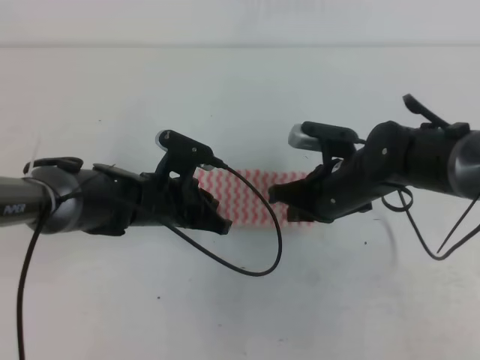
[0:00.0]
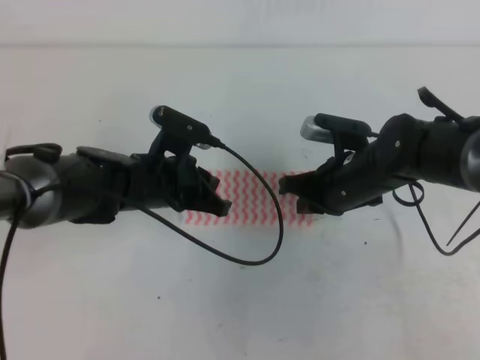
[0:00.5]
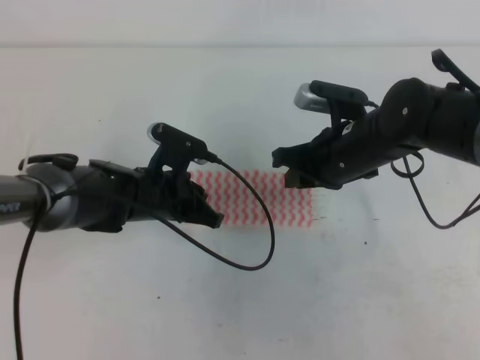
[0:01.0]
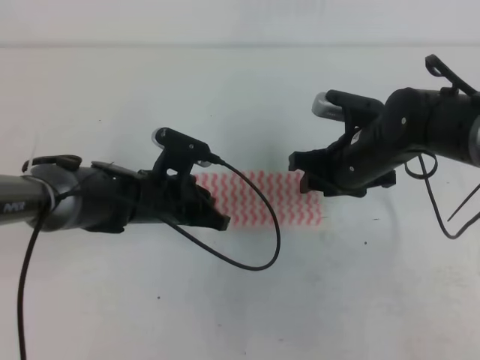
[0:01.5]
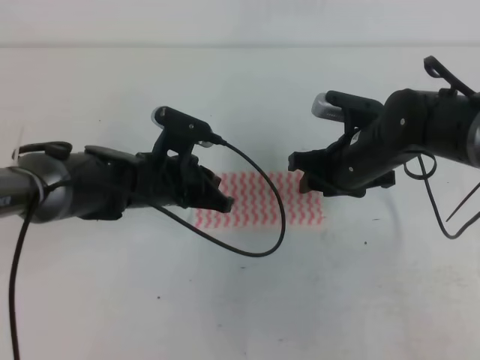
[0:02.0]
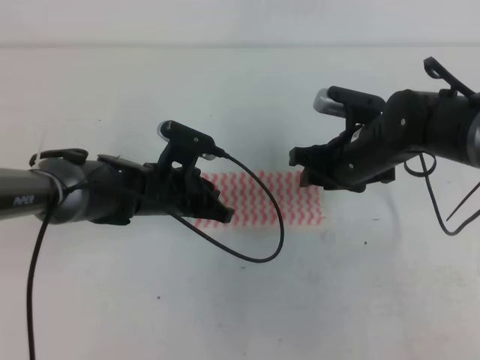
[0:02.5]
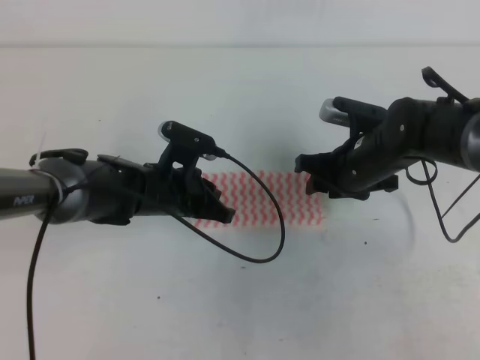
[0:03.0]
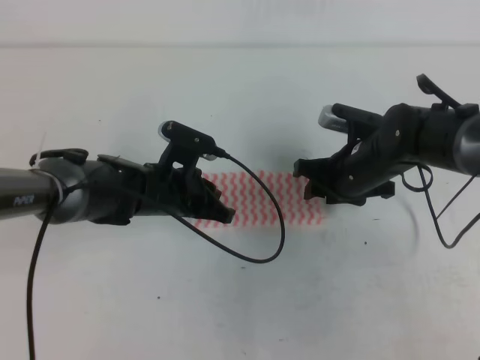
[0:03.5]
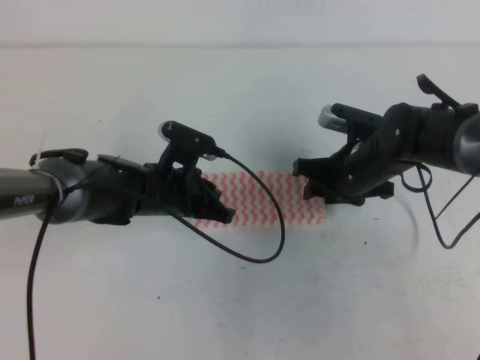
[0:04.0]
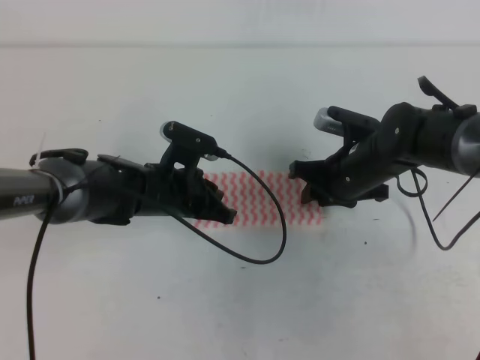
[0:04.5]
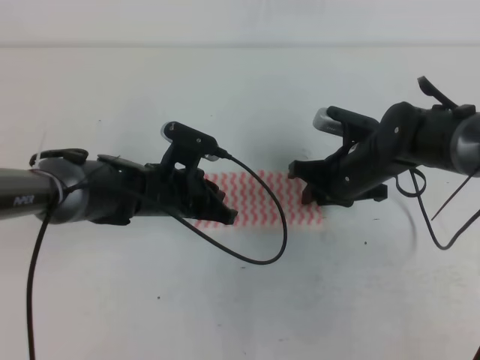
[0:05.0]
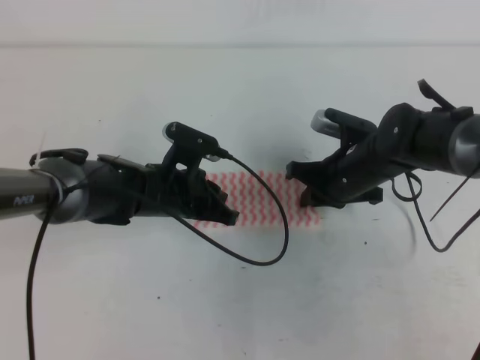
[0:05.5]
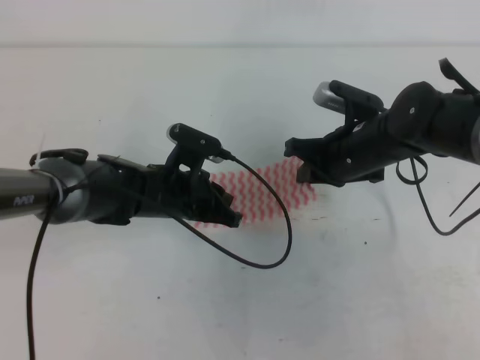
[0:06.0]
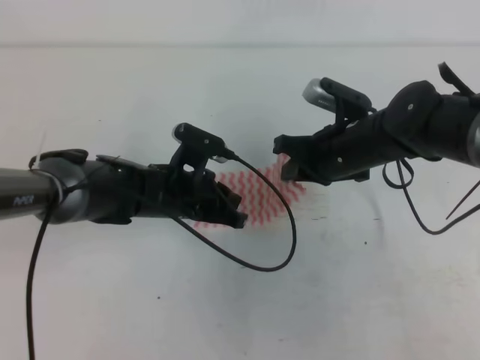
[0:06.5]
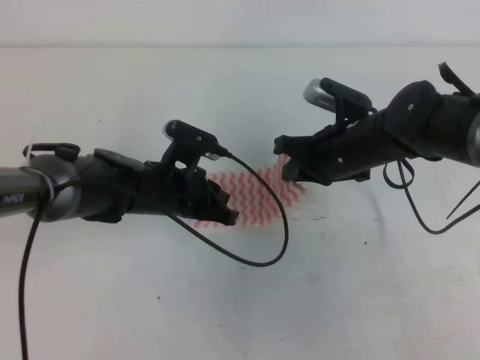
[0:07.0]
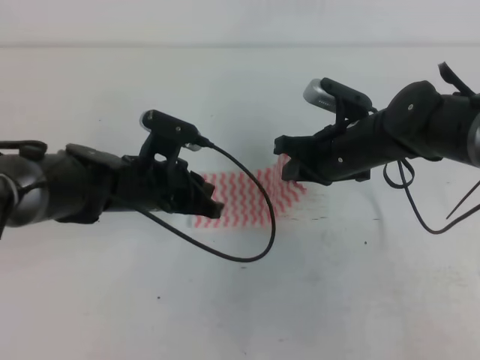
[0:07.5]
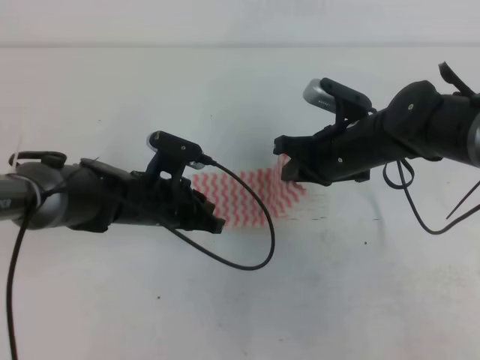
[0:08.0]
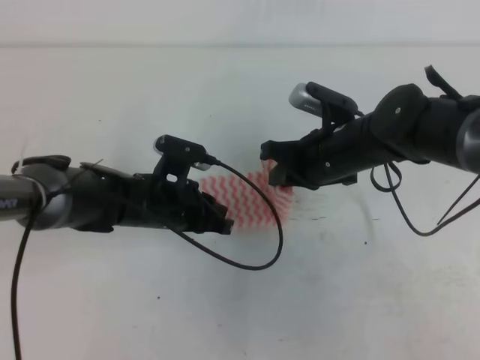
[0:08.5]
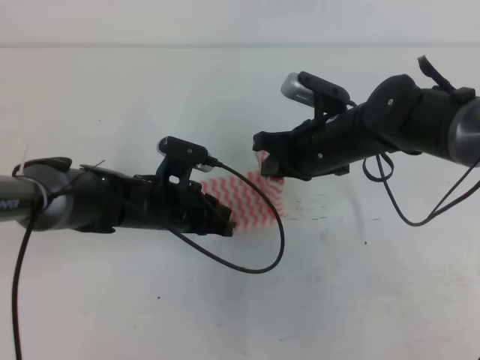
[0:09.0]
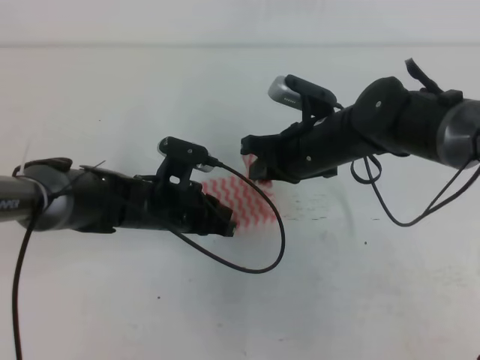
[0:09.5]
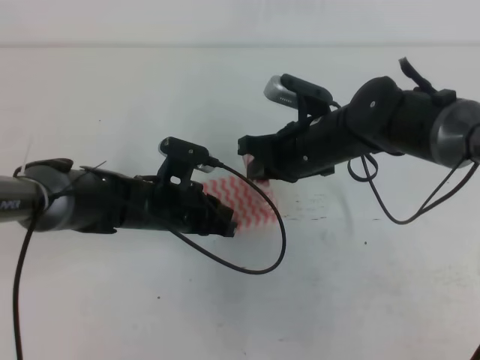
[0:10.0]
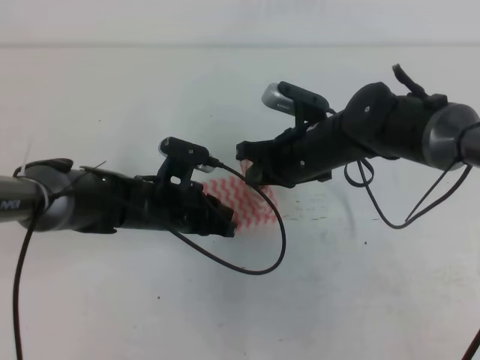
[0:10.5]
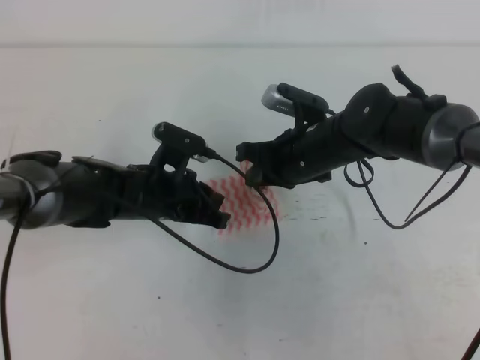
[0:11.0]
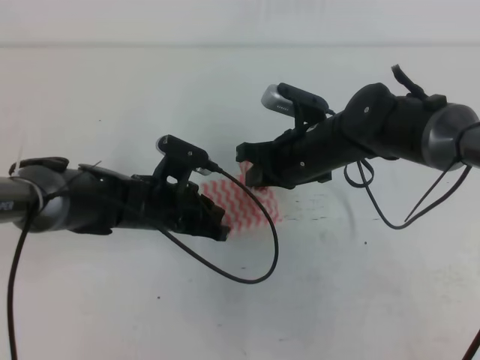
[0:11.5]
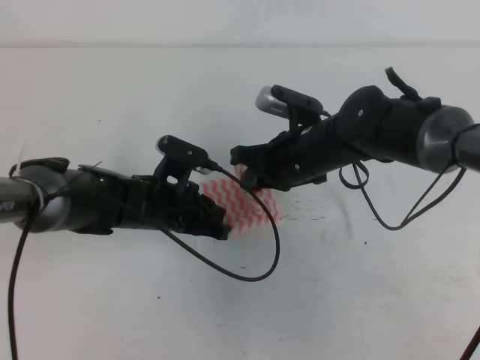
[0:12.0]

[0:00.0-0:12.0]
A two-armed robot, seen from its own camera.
0:00.0 to 0:02.0: The right gripper opens its fingers.
0:02.0 to 0:04.0: The grippers move only a little.
0:04.0 to 0:06.0: The right gripper closes.
0:06.0 to 0:12.0: There are only small adjustments of the grippers.

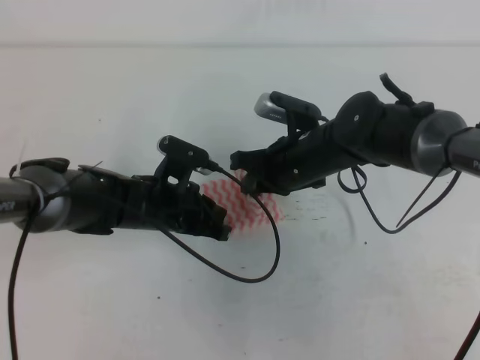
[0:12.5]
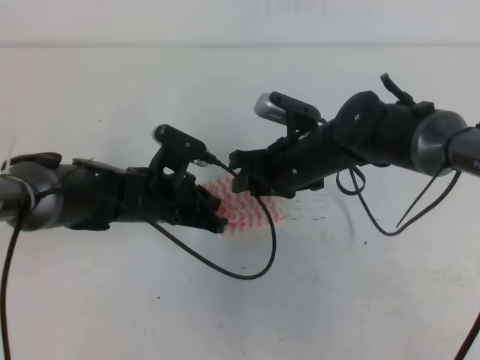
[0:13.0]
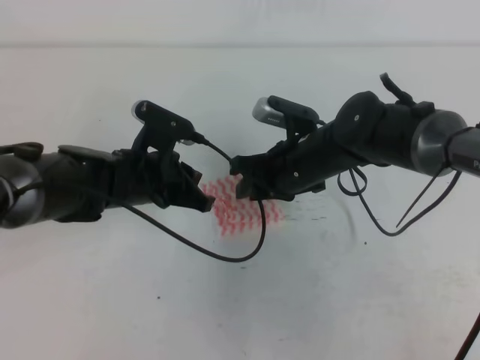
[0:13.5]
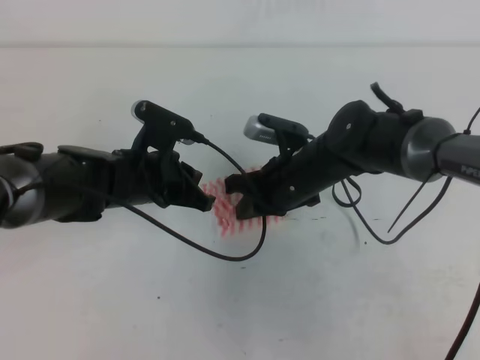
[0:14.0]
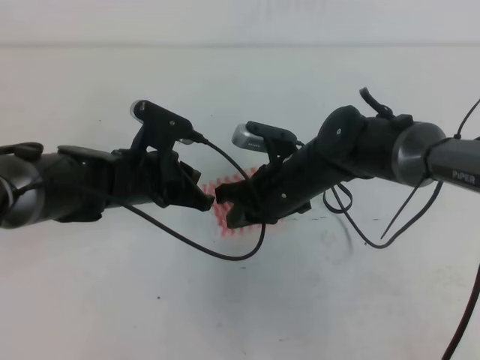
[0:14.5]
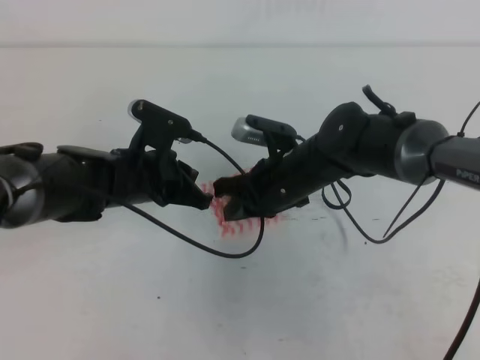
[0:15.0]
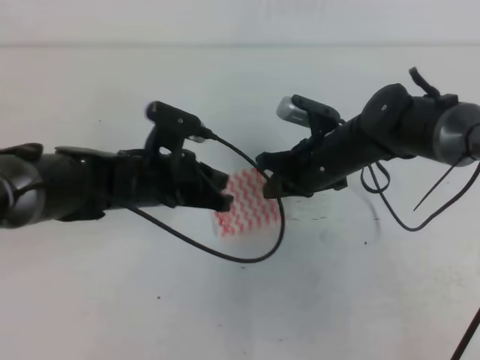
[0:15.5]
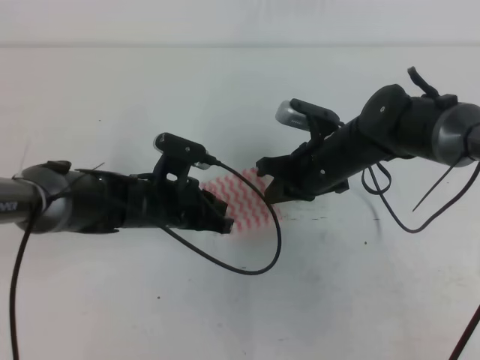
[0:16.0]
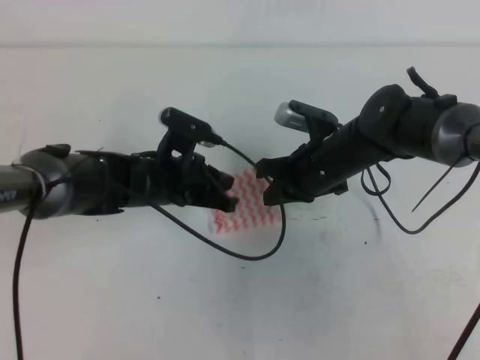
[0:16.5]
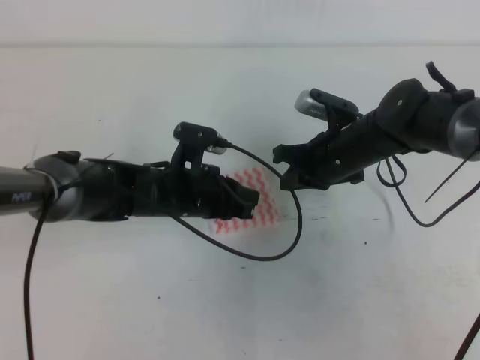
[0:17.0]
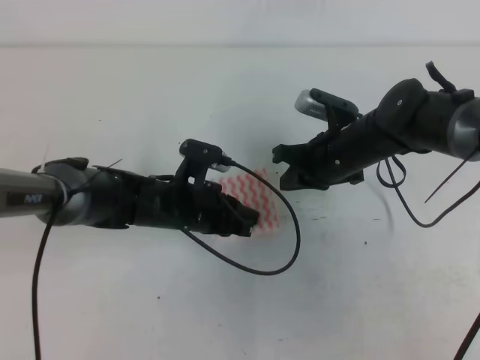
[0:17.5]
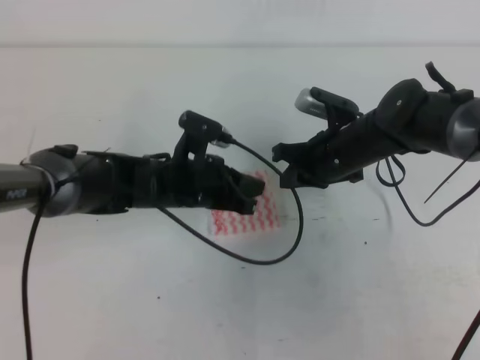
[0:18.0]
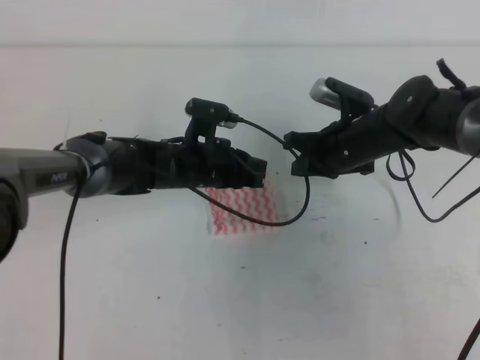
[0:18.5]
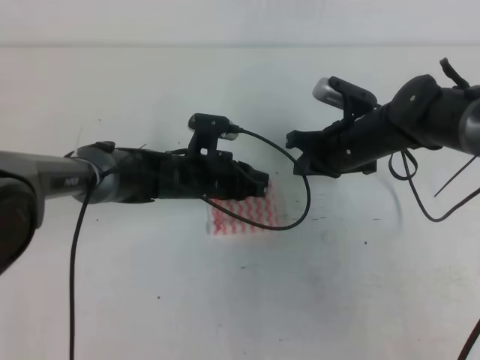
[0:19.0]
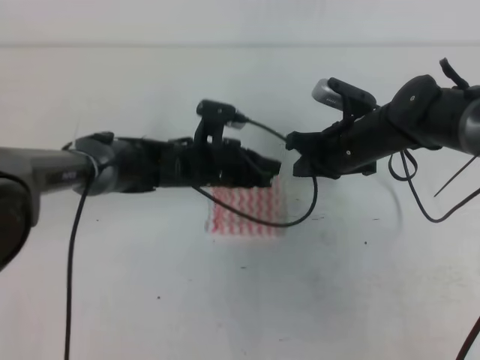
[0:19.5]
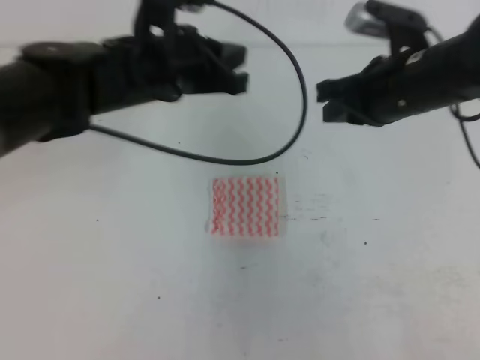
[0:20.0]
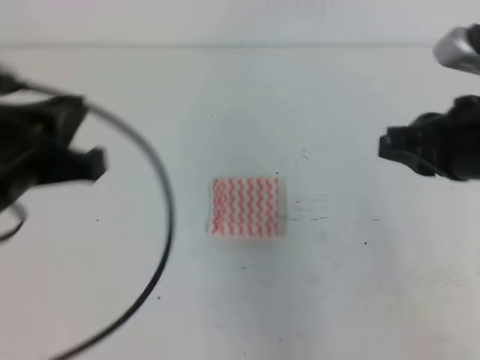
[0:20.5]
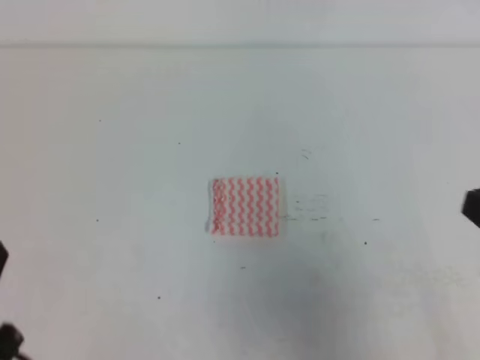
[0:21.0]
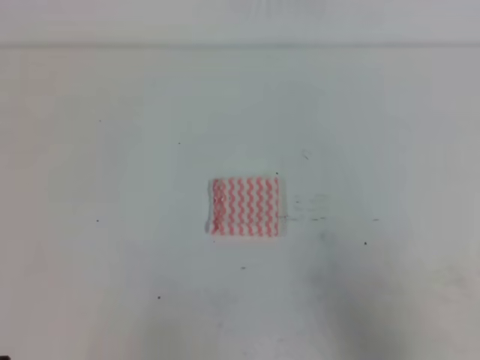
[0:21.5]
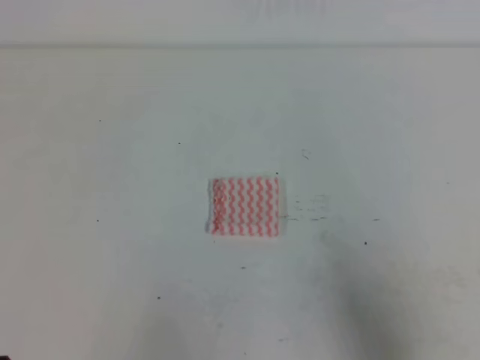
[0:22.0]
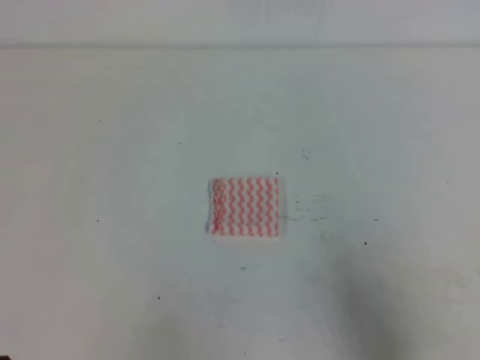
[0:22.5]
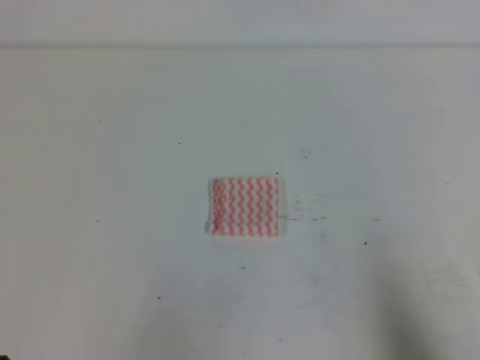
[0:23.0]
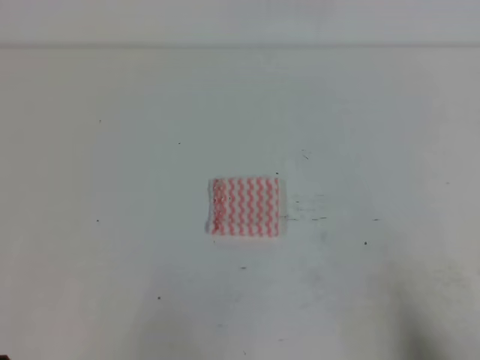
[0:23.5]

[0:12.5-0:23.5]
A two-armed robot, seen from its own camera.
0:12.5 to 0:14.5: The right gripper opens, then closes once more.
0:14.5 to 0:16.0: The right gripper is displaced to the right by some 5 cm.
0:16.0 to 0:18.0: The grippers move only a little.
0:18.0 to 0:20.0: Both grippers move upward, about 15 cm.
0:20.0 to 0:21.5: The right gripper moves backward and to the right, approximately 30 cm. The left gripper is displaced backward, to the left and downward by roughly 35 cm.
0:21.5 to 0:23.5: The right gripper moves downward and backward, approximately 10 cm.
